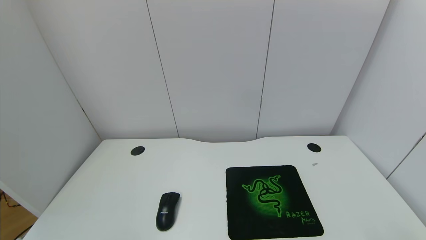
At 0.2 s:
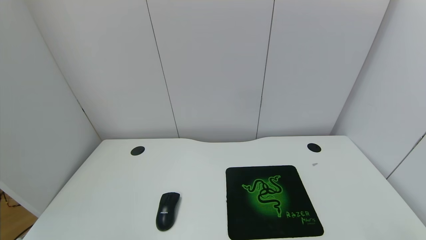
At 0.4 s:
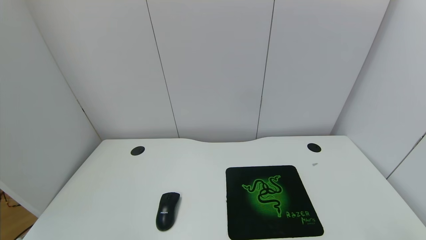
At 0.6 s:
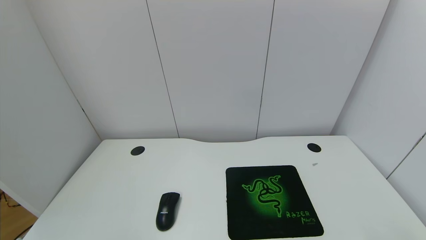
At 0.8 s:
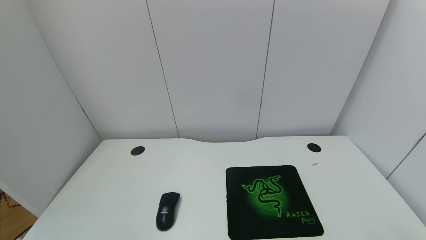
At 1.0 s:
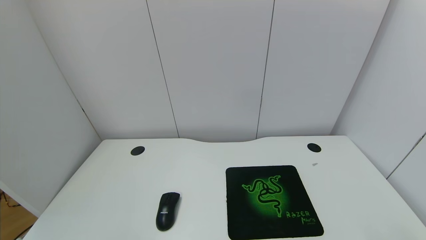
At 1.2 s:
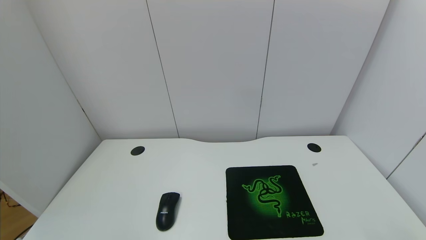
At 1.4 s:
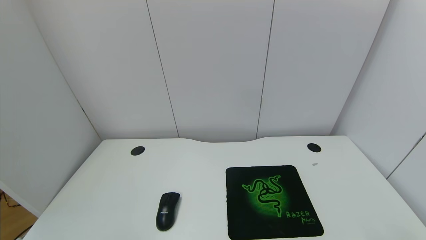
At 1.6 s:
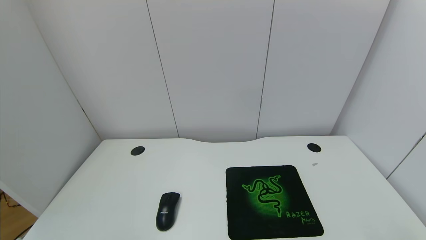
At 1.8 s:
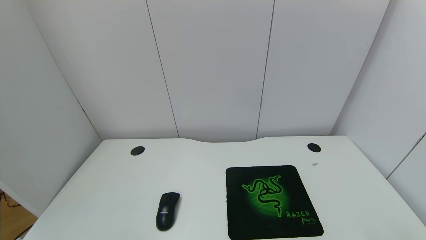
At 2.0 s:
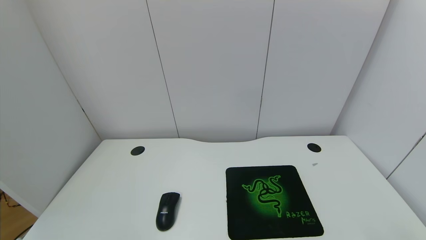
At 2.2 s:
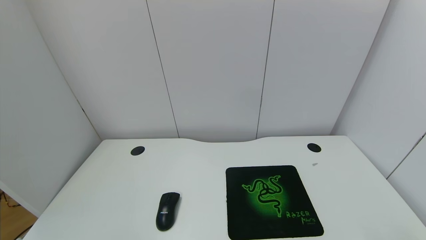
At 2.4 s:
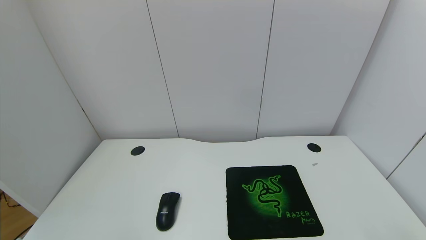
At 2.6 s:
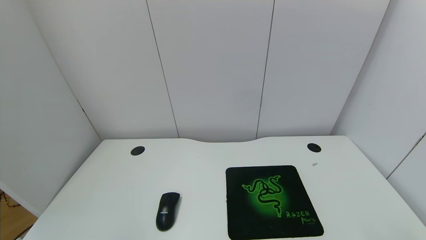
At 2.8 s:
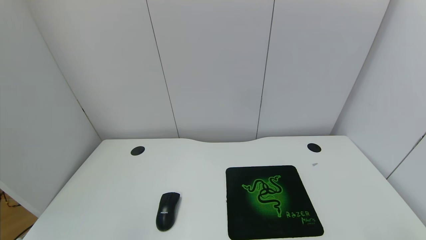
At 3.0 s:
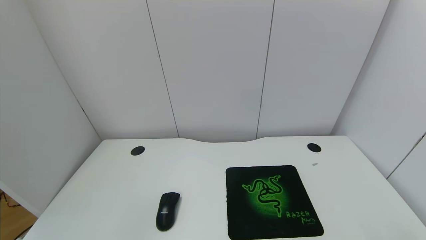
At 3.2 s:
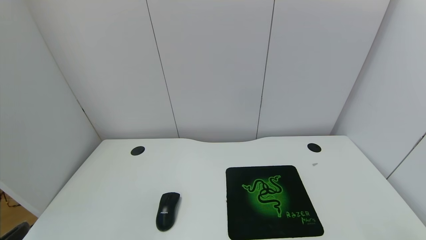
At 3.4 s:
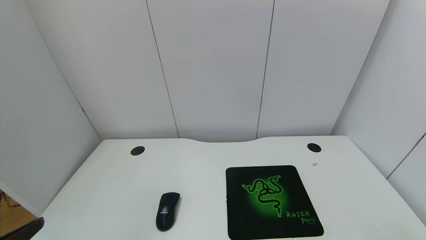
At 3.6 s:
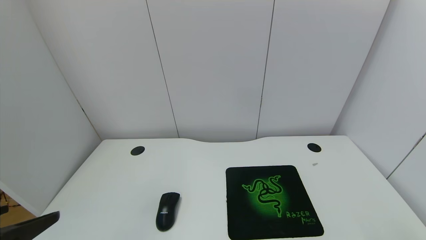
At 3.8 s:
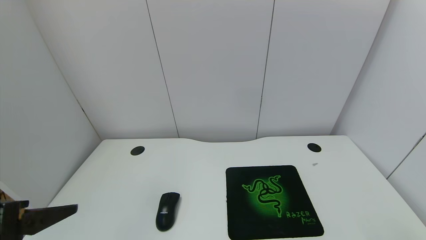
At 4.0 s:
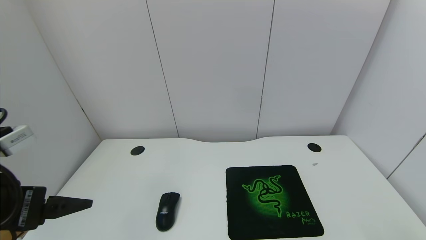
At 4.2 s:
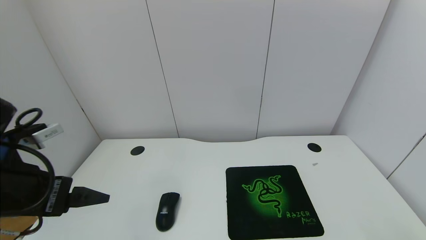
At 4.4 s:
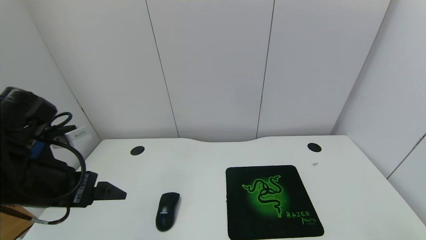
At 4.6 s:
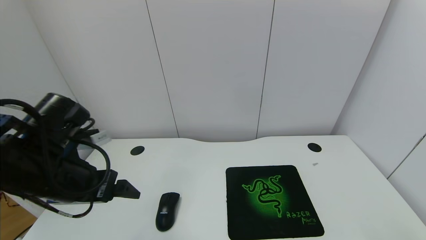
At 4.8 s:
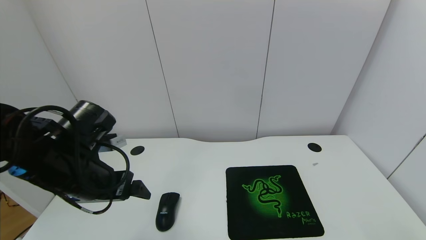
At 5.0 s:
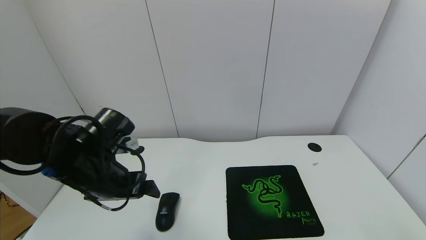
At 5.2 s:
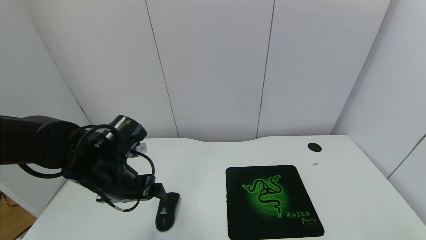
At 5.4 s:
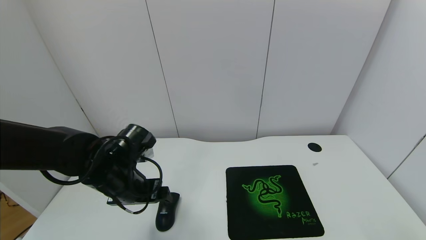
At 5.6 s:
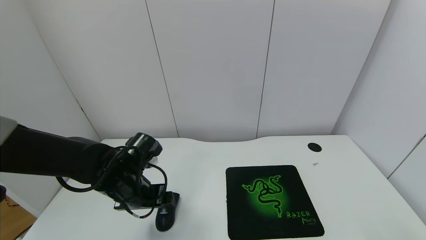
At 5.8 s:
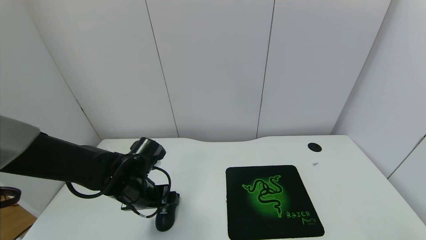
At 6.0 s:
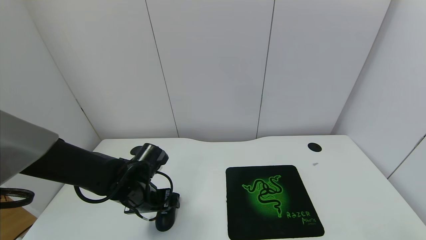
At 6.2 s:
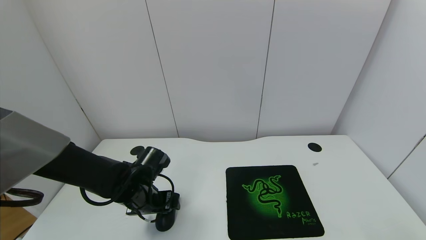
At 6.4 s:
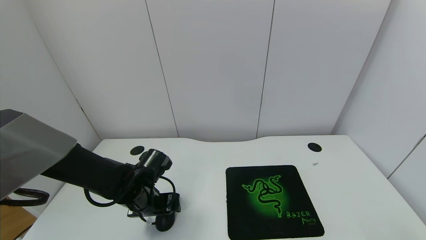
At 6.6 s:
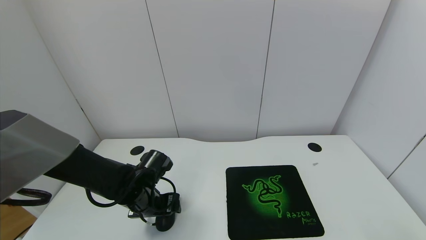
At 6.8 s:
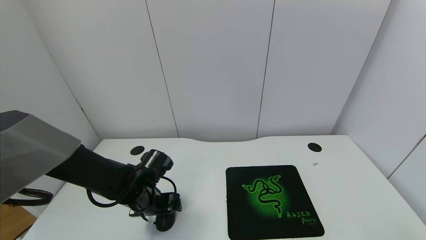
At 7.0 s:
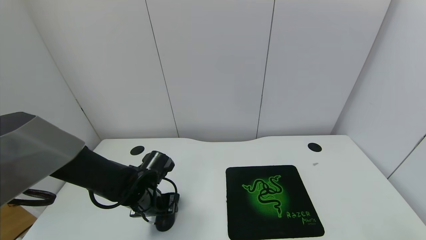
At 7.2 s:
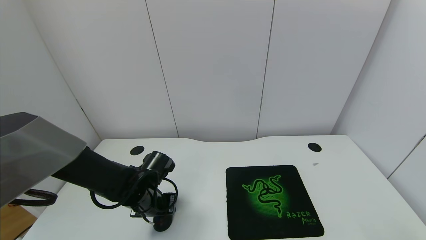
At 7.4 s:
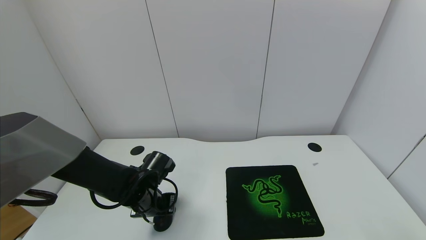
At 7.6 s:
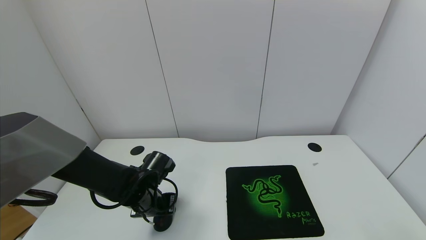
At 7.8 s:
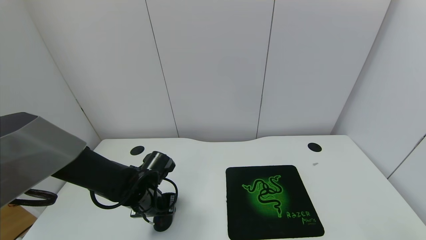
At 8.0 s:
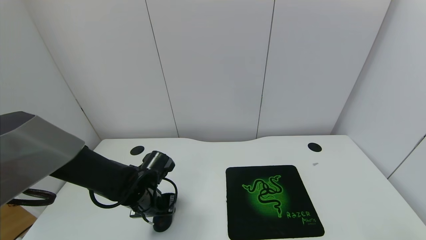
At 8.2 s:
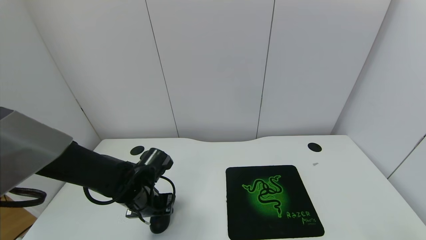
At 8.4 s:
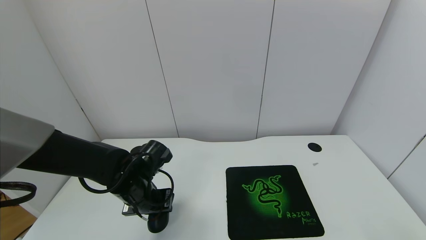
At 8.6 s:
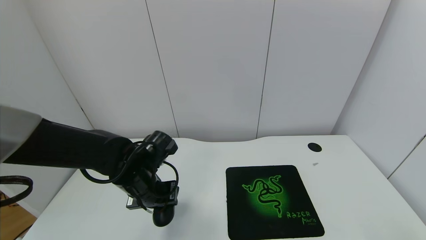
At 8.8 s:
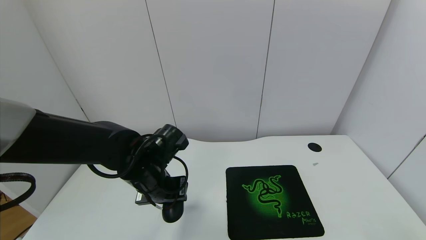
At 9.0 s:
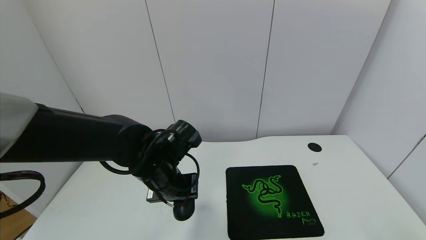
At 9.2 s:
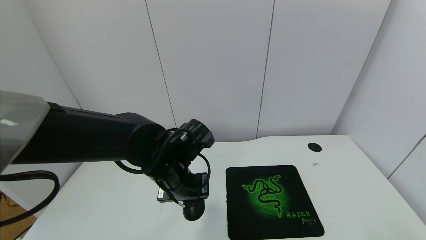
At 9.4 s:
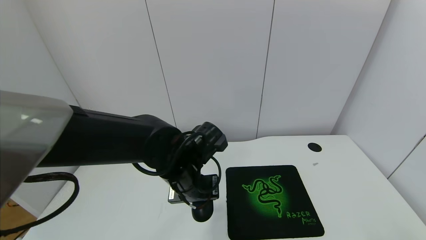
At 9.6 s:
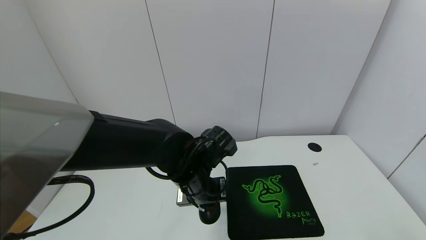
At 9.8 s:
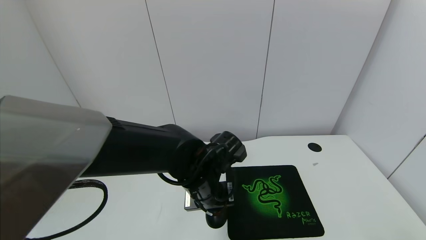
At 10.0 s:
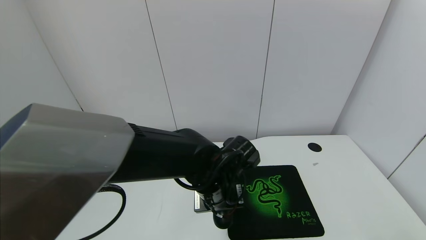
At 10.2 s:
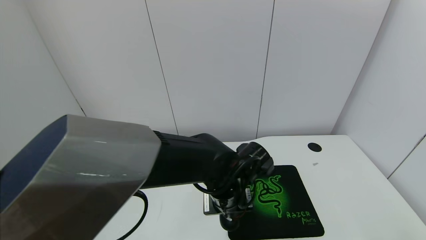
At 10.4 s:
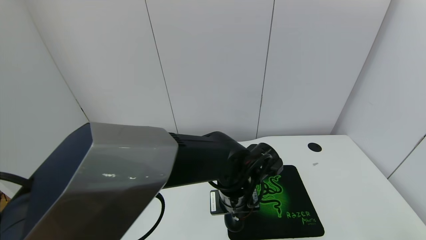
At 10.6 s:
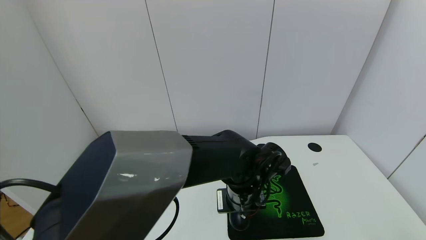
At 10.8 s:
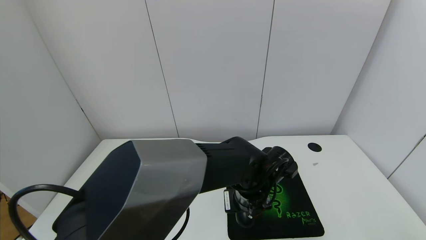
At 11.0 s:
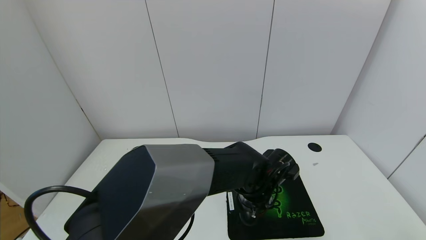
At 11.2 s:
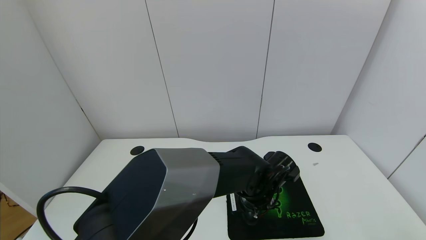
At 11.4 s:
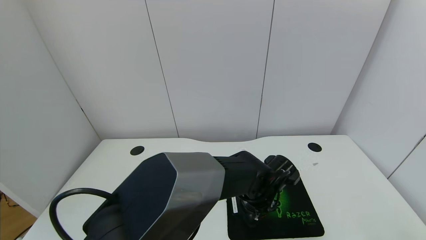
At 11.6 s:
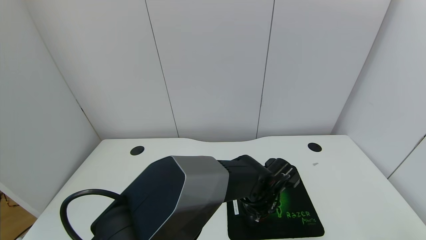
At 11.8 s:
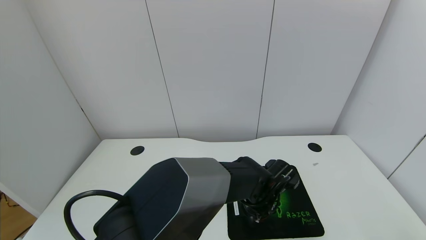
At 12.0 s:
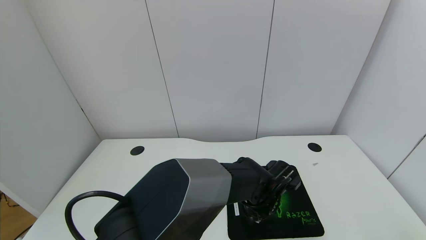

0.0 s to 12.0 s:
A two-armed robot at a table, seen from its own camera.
Task of the whole recording: use the gripper to move the mouse from one side of the table to the mouse pad on the opposite side.
Step, 0.0 to 7.2 s: Grasp the mouse with the left gripper.
0.0 to 1.6 s: The two grippers keep their place.
3.0 to 4.4 s: The left gripper goes about 20 cm forward.
4.4 to 6.0 s: The left gripper goes some 20 cm downward, forward and to the right.
6.0 to 7.6 s: The left gripper closes up.
7.6 to 9.0 s: The left gripper is displaced upward and to the right by roughly 10 cm.
9.0 to 10.4 s: The left gripper goes approximately 15 cm to the right.
10.4 to 12.0 s: The left gripper heads downward and to the right, covering approximately 10 cm.

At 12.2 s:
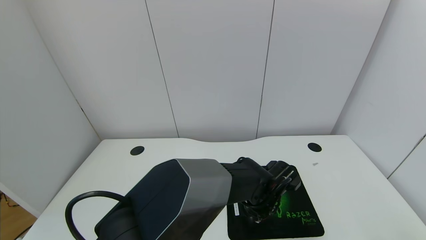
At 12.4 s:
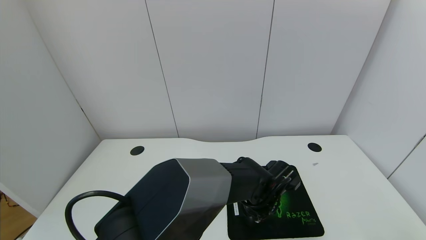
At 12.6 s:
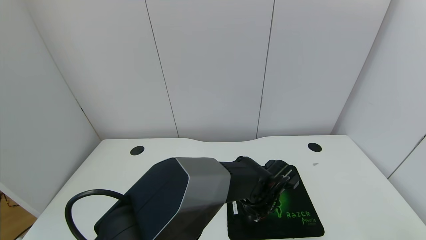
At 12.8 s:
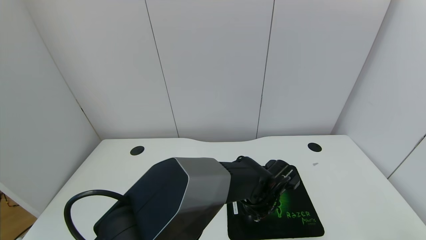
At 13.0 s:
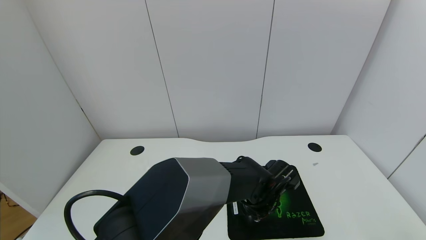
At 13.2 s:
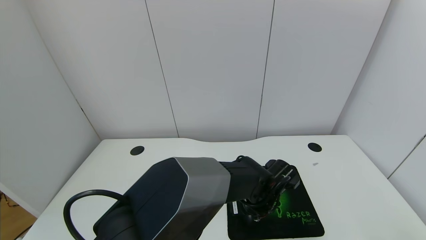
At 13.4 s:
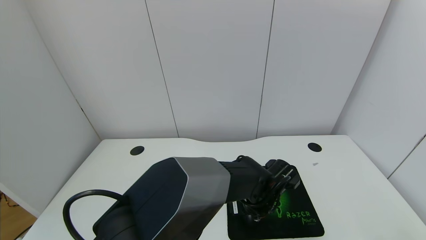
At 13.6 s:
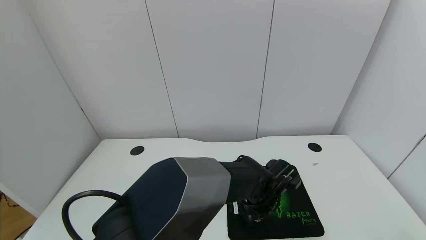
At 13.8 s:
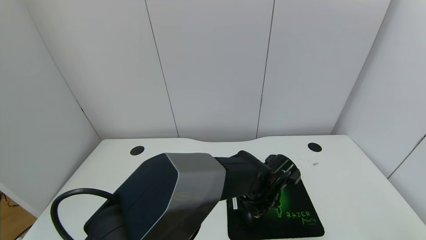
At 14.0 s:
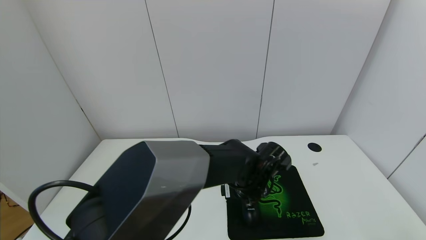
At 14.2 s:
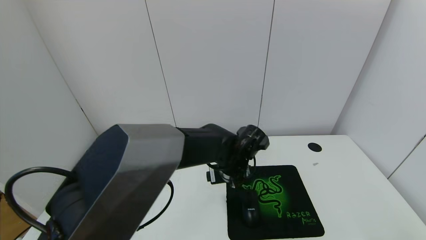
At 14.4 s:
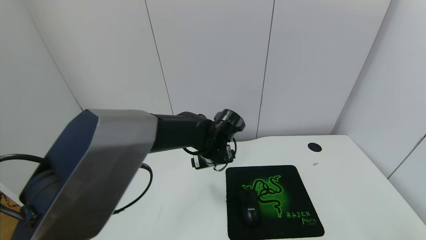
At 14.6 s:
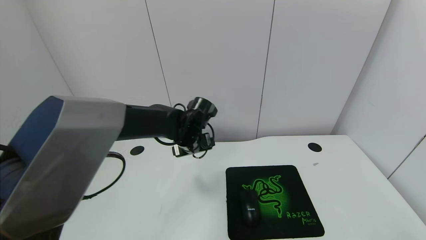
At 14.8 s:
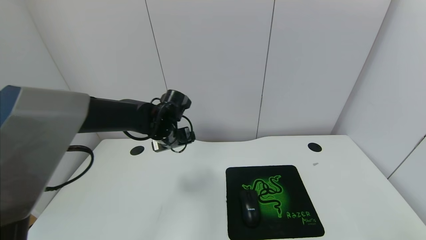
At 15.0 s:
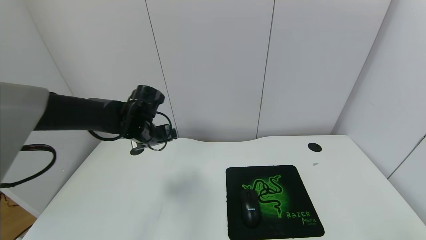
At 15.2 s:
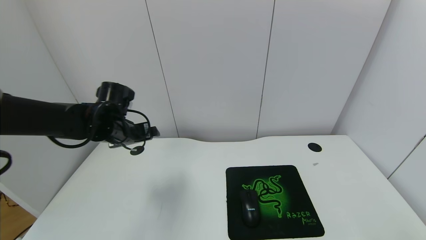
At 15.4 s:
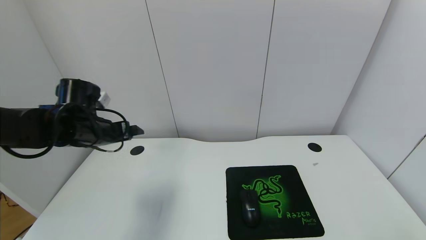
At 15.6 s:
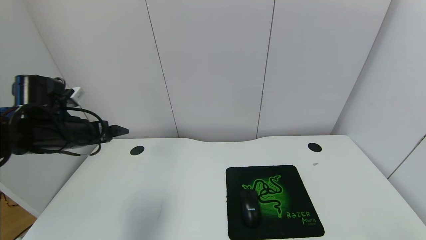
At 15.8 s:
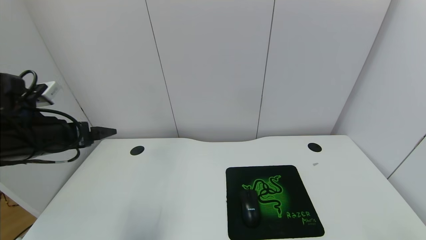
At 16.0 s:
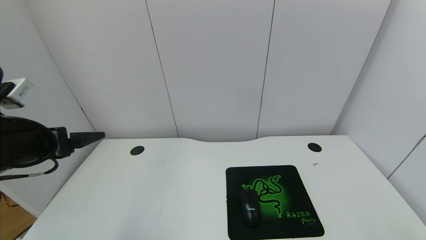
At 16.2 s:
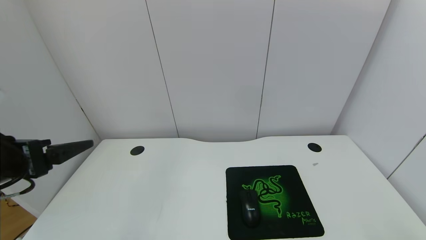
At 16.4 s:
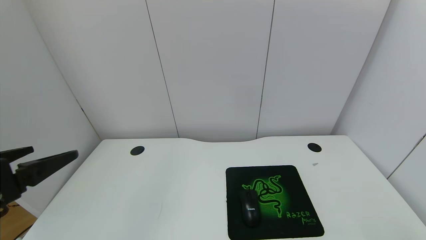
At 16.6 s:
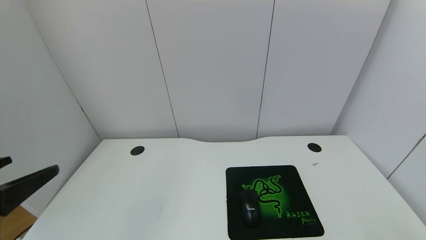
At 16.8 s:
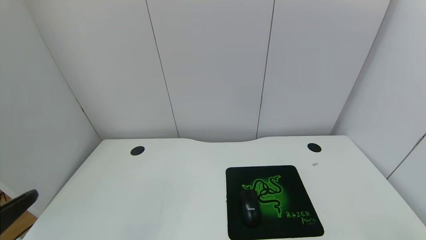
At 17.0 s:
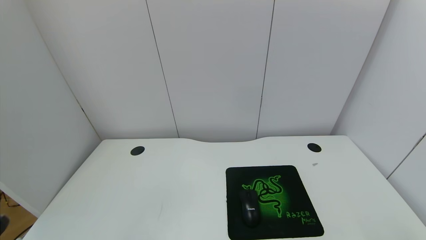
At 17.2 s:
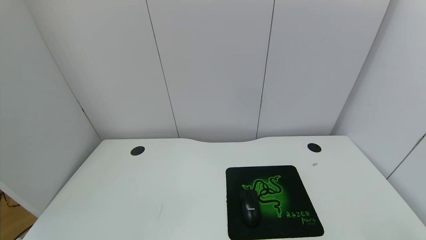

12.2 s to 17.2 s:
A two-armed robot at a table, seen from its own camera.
Task of the whole recording: use the gripper to move the mouse from one side of the table to the mouse pad on the opposite side.
12.2 to 13.8 s: The left gripper opens up.
13.8 to 15.6 s: The left gripper is displaced to the left by roughly 40 cm.
15.6 to 17.2 s: The left gripper goes about 35 cm backward.
